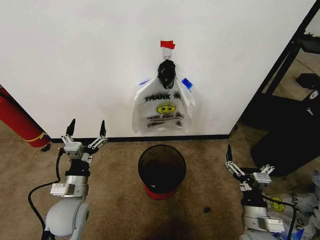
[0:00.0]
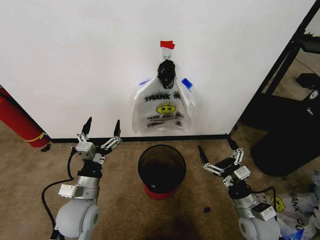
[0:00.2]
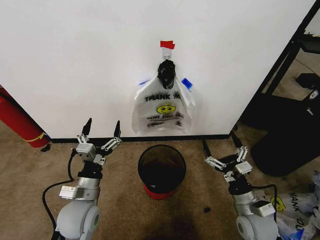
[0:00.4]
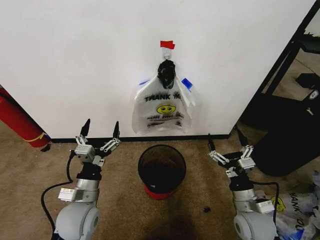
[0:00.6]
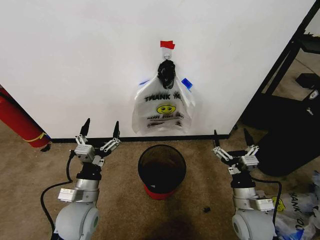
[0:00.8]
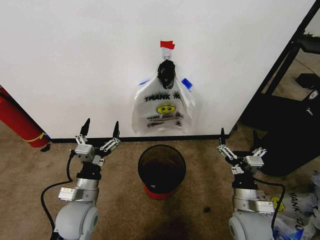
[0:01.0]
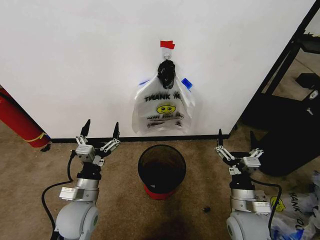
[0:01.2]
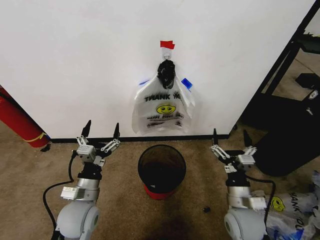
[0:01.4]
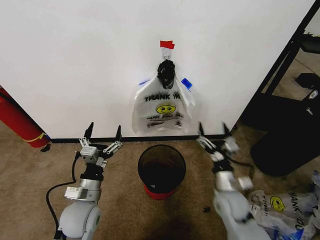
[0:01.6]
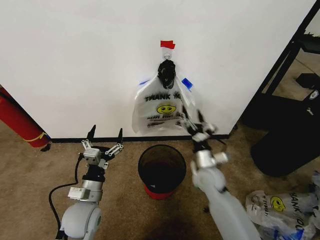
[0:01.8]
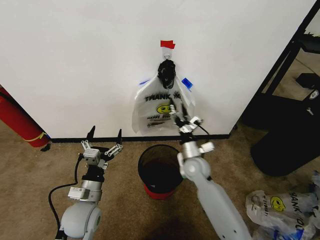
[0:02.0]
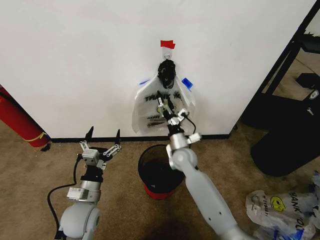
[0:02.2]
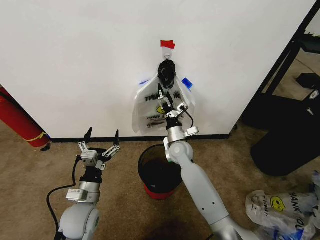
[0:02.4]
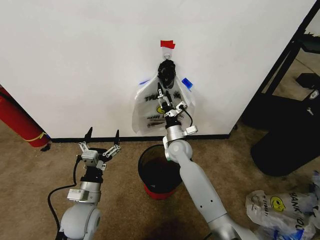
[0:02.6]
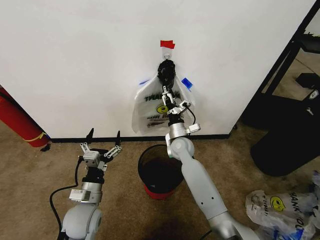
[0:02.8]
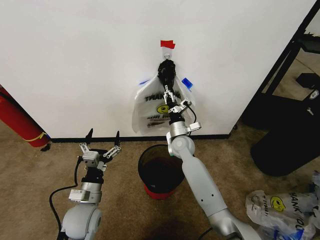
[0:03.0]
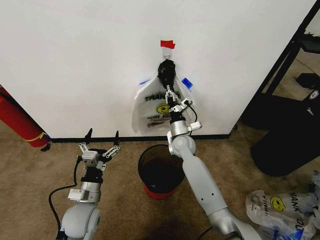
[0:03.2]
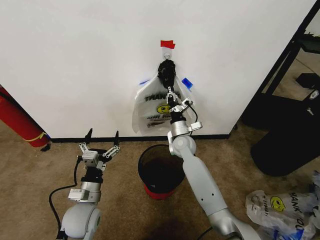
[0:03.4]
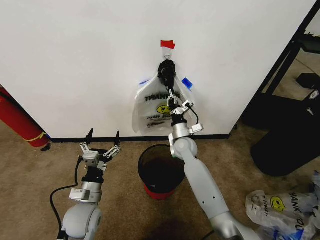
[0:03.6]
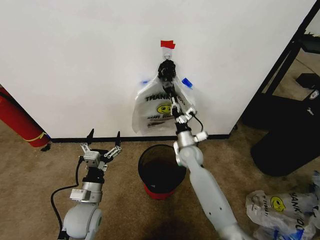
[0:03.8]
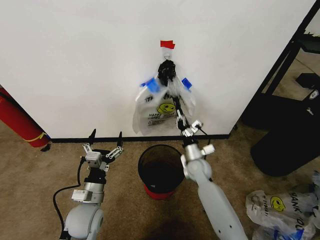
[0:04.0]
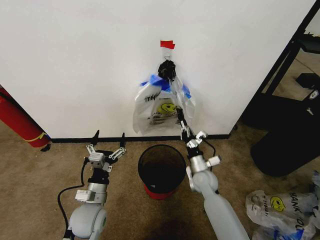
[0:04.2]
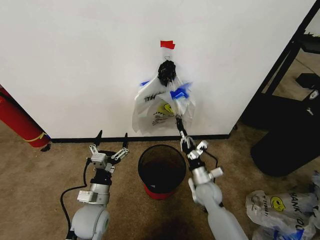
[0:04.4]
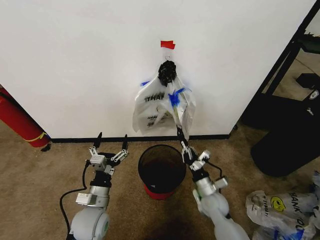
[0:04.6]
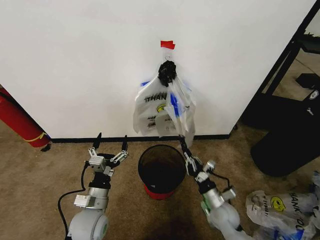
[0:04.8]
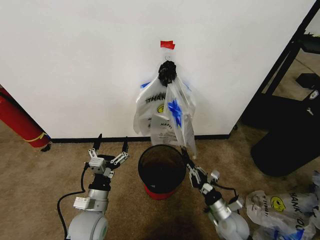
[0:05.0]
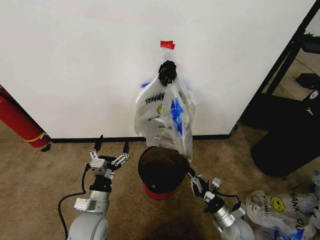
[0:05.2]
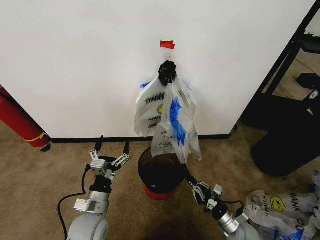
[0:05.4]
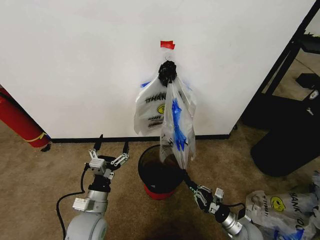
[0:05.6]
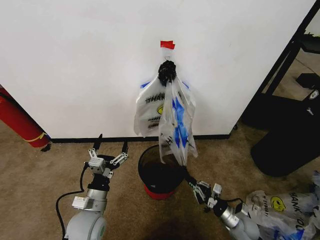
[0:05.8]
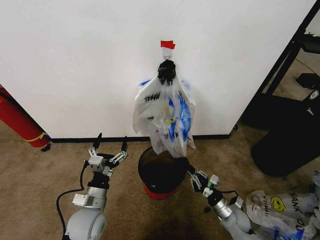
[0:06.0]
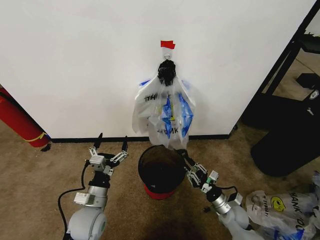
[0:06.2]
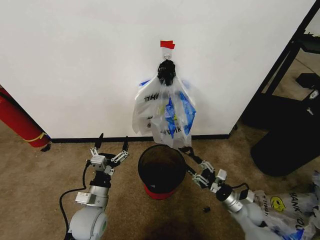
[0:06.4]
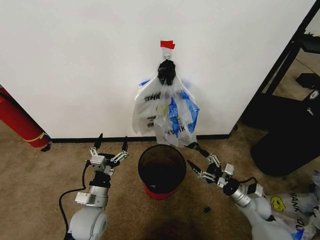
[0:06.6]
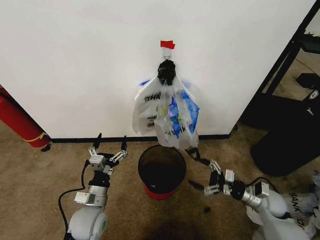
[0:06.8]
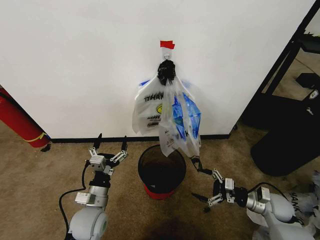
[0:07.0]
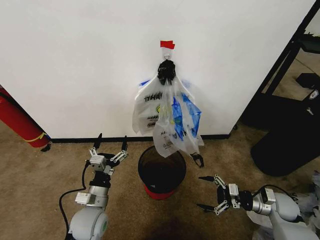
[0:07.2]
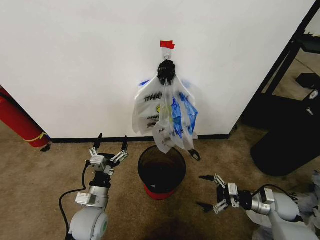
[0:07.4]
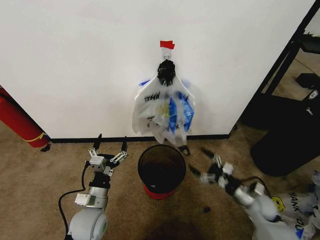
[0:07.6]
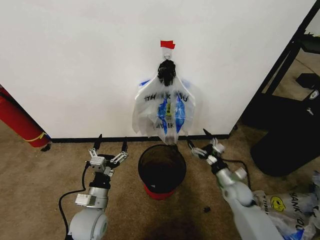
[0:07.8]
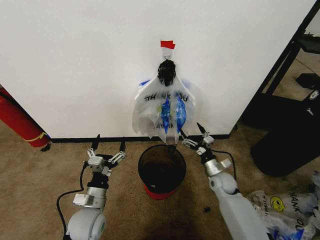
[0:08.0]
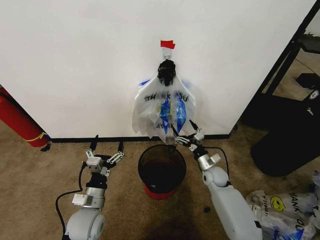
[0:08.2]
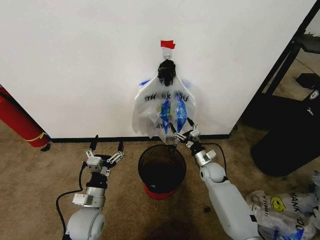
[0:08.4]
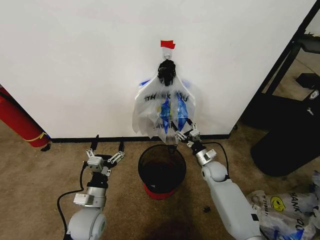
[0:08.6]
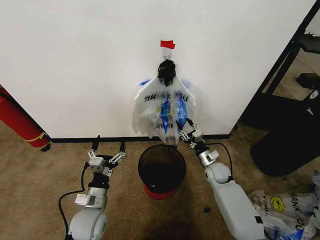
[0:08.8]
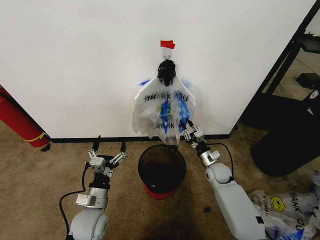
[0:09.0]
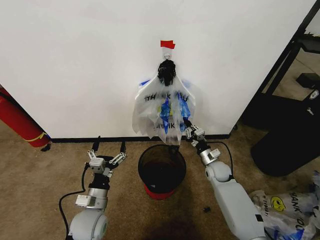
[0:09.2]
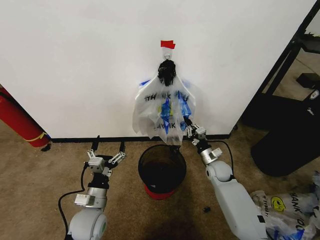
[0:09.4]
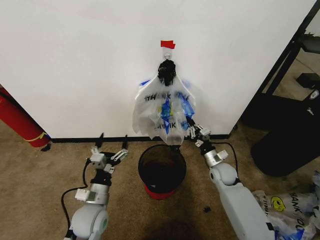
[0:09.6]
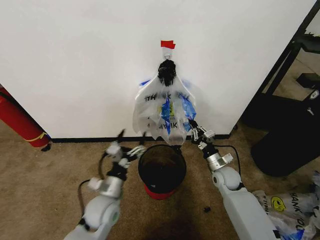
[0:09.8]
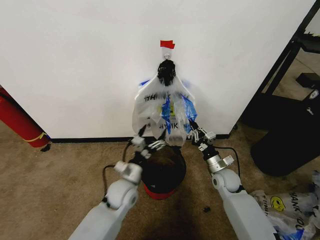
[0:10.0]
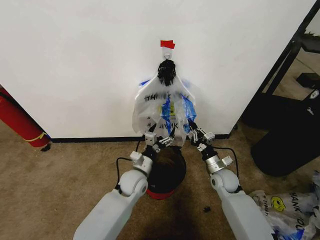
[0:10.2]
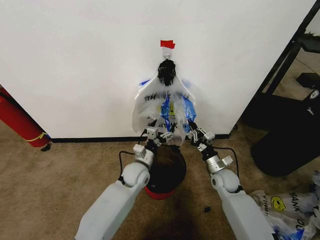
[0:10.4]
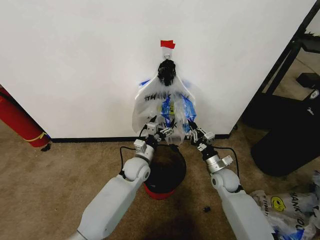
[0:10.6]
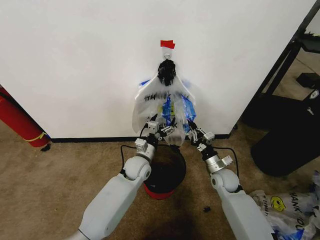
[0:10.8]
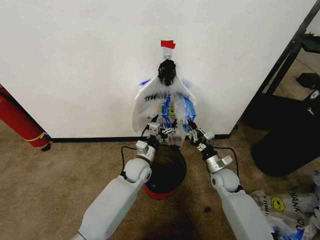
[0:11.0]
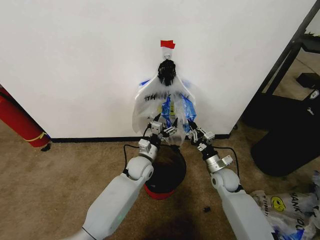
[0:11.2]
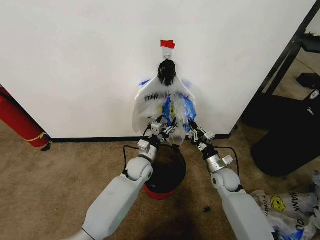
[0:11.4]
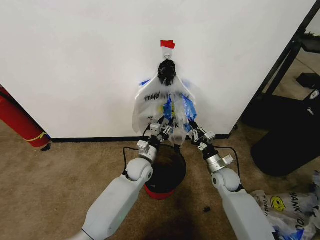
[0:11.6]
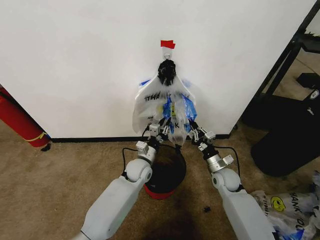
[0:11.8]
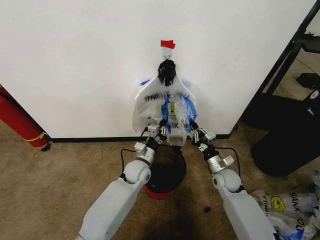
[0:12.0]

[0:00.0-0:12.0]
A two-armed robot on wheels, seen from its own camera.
Task of the whole recording: Pick up the garbage bag from the wall and place it over the trash bin.
0:01.6 to 0:03.0: The right gripper moves forward and to the left, approximately 25 cm, and closes its fingers.
0:03.0 to 0:04.4: The right gripper heads backward, downward and to the right, covering about 20 cm, and closes.
0:04.4 to 0:06.0: The right gripper travels to the right, downward and backward by approximately 15 cm.
0:06.0 to 0:07.6: The right gripper goes roughly 10 cm upward and to the right, and opens up.
0:07.6 to 0:09.0: The right gripper moves forward and to the left, about 15 cm, and closes.
0:09.0 to 0:10.4: The right gripper shifts by approximately 5 cm. The left gripper is displaced forward and to the right by roughly 20 cm.
0:10.4 to 0:12.0: The left gripper closes.

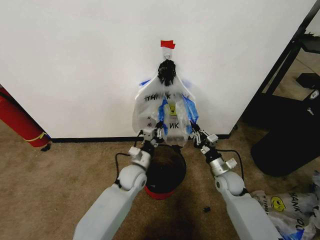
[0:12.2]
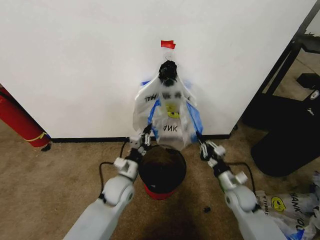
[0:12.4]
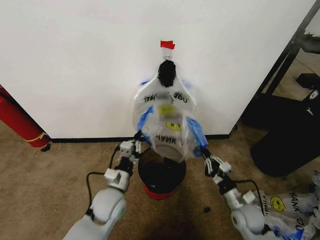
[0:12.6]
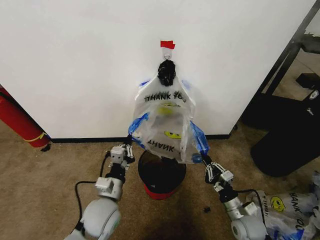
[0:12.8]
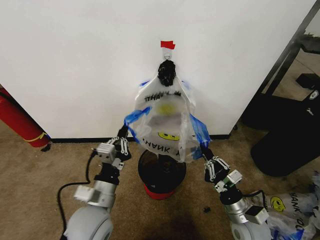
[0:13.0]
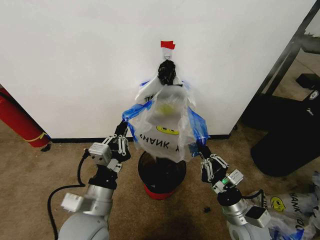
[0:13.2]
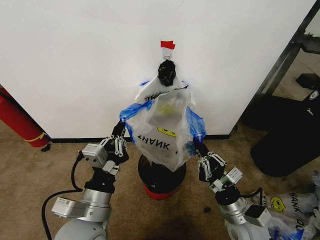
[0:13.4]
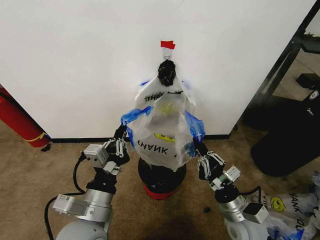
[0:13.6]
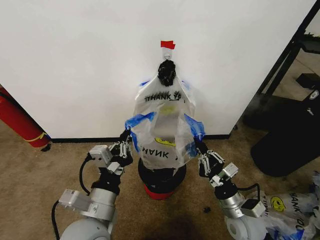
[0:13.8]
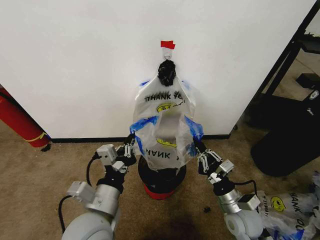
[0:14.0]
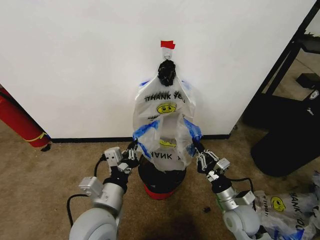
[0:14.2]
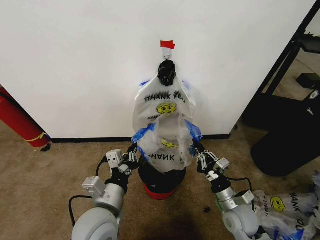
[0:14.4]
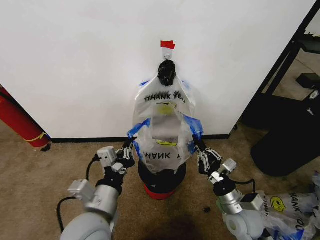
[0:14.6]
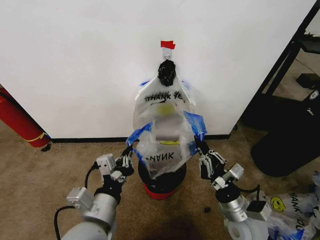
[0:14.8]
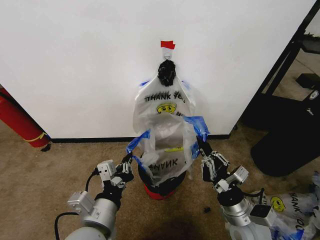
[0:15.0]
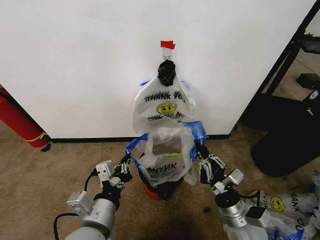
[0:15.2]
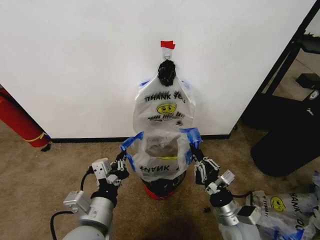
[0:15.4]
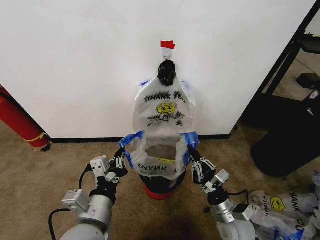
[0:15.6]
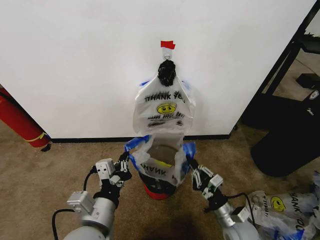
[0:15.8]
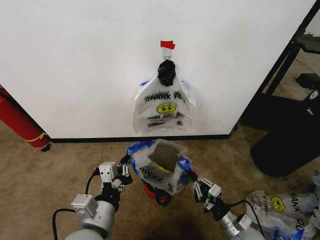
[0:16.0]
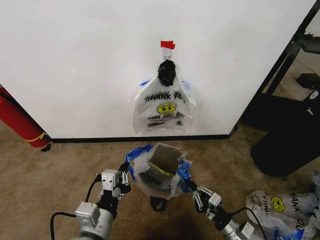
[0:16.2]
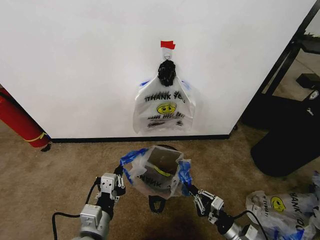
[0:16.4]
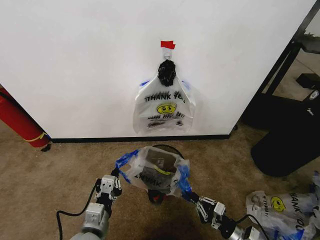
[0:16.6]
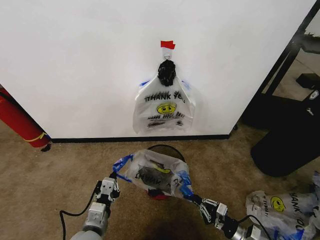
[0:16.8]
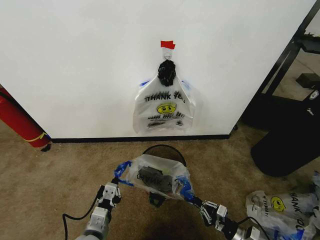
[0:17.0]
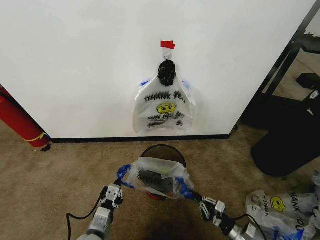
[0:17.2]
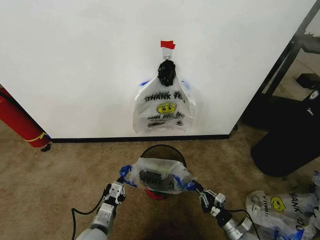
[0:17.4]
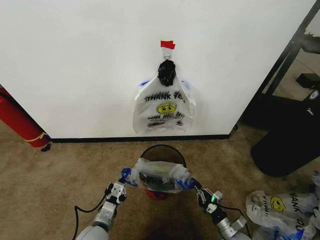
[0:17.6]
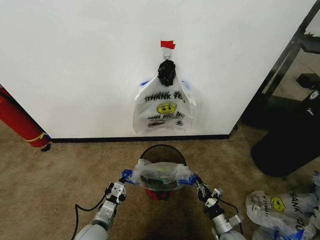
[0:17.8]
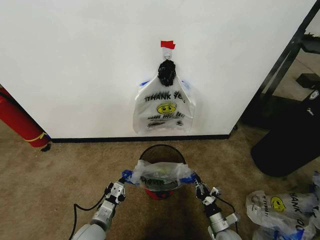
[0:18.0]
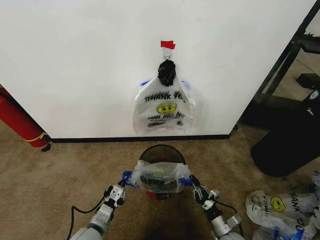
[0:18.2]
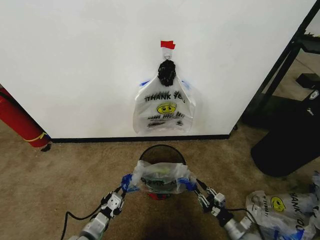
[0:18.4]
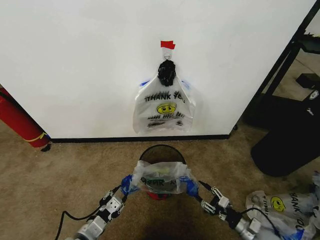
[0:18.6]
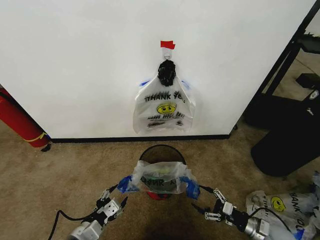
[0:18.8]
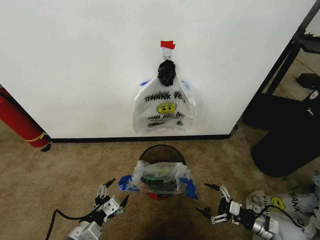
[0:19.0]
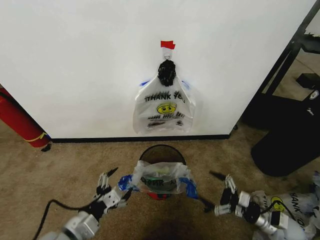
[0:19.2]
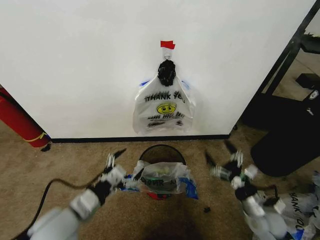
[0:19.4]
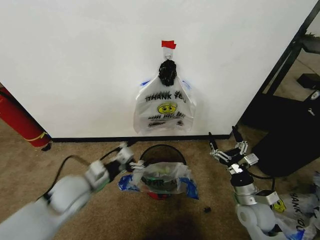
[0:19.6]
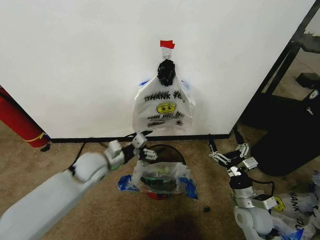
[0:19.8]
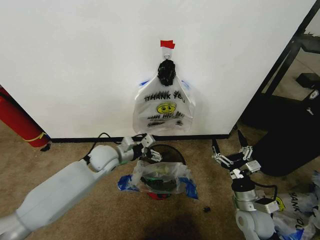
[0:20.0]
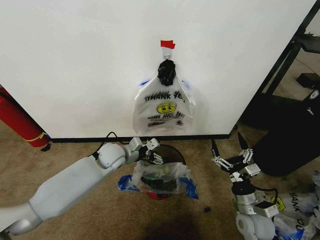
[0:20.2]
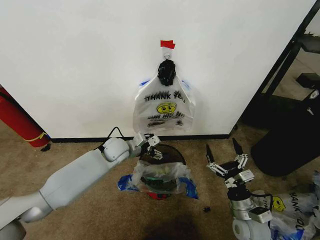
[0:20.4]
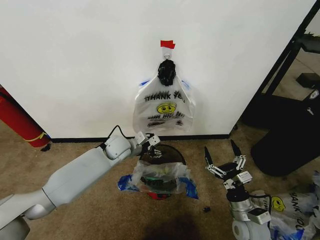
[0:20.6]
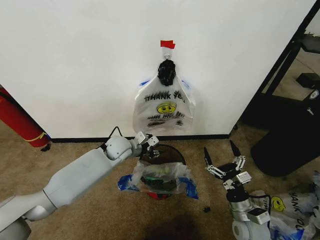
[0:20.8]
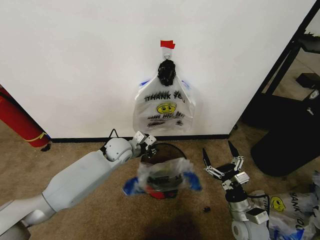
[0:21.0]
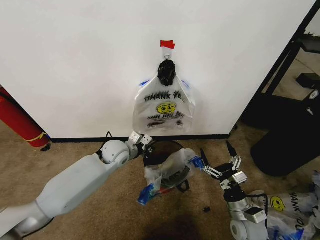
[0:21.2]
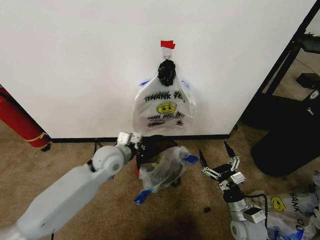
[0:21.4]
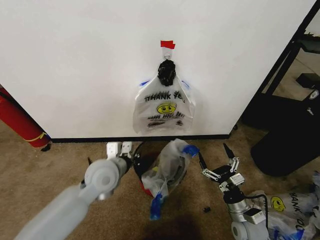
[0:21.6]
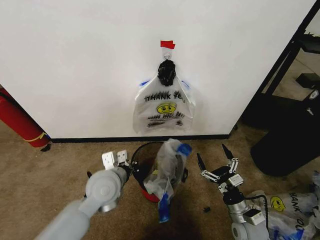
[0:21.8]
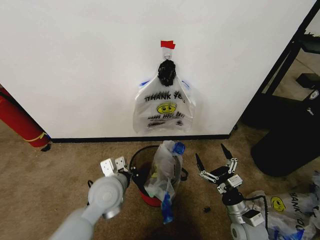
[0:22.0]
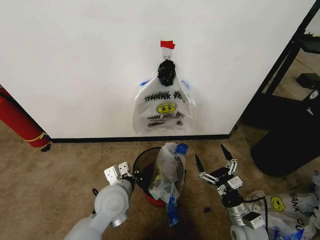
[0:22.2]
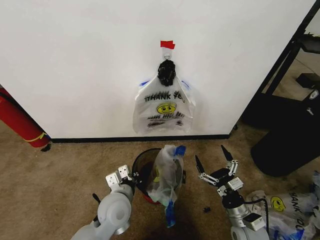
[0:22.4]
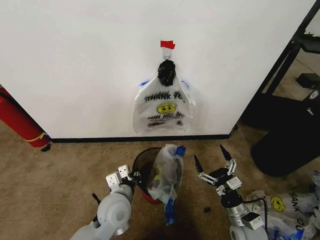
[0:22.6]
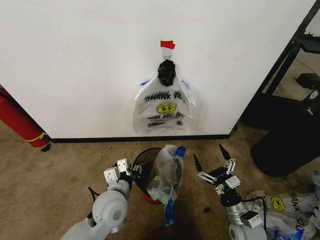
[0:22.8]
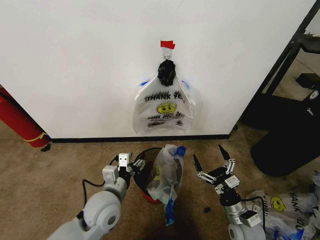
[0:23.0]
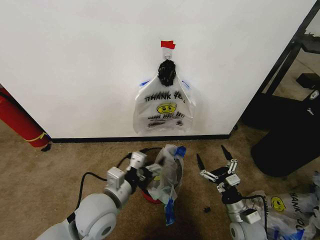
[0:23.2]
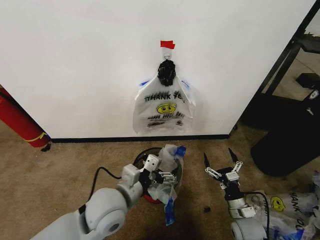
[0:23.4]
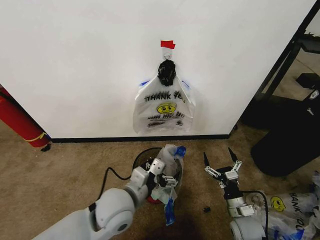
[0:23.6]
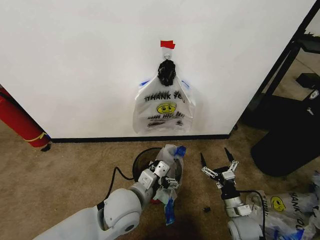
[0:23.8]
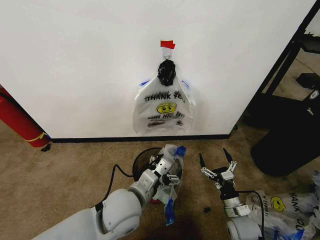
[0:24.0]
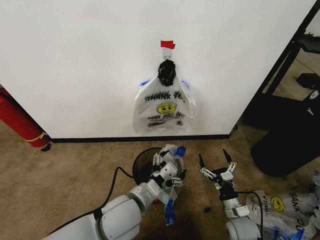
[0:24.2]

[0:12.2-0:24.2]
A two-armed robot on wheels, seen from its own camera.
Task of the whole recording: Pick up the garbage bag from the wall and place it over the trash bin.
0:12.2 to 0:13.8: The left gripper shifts roughly 30 cm backward and upward. The right gripper shifts approximately 15 cm backward.
0:15.2 to 0:16.6: The left gripper goes some 10 cm downward. The right gripper travels downward and to the right by approximately 15 cm.
0:16.6 to 0:18.2: The two grippers go approximately 10 cm downward.
0:18.2 to 0:19.8: The left gripper shifts about 25 cm forward and upward, and opens its fingers. Meanwhile the right gripper shifts about 20 cm upward, and opens its fingers.
0:19.8 to 0:21.2: The left gripper heads forward and to the right, covering some 10 cm, and closes.
0:21.2 to 0:22.6: The left gripper is displaced backward by about 20 cm.
0:22.6 to 0:24.2: The left gripper heads upward, covering roughly 5 cm, and opens.
